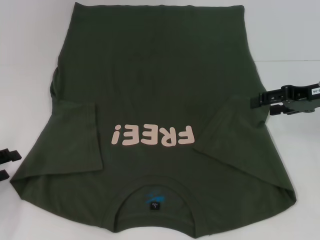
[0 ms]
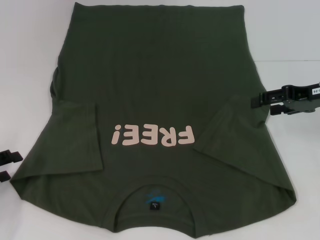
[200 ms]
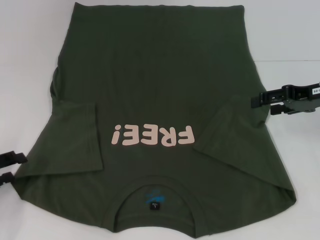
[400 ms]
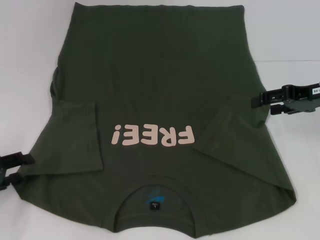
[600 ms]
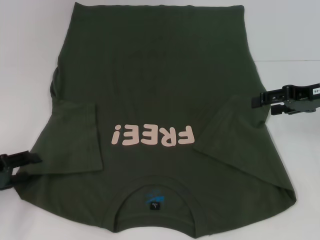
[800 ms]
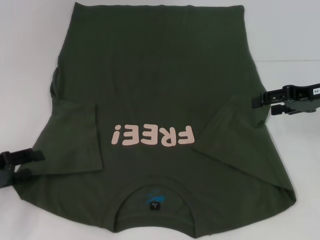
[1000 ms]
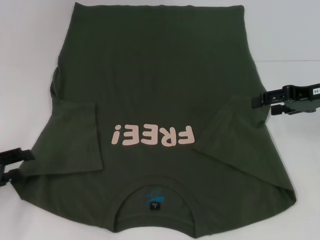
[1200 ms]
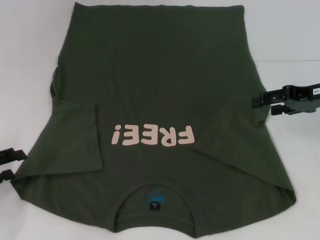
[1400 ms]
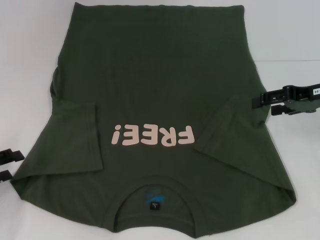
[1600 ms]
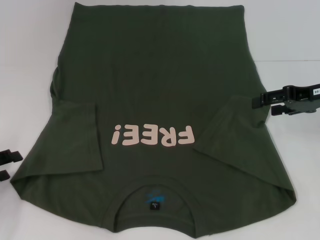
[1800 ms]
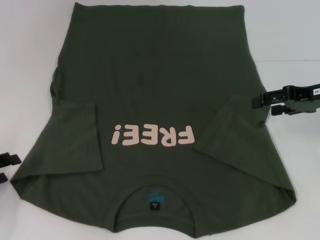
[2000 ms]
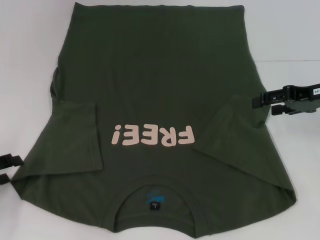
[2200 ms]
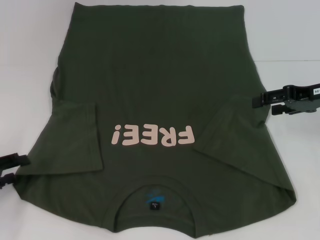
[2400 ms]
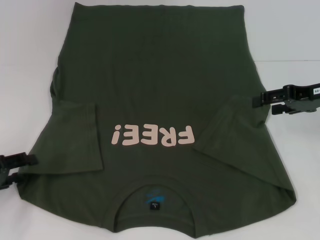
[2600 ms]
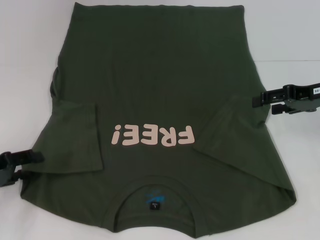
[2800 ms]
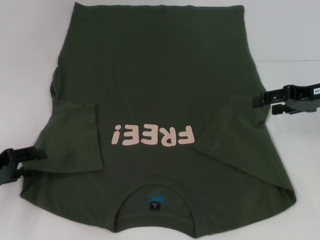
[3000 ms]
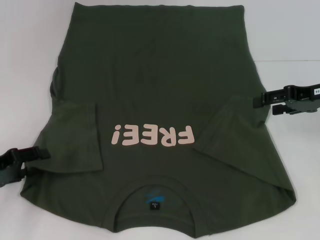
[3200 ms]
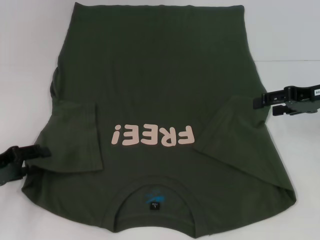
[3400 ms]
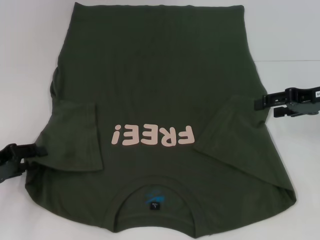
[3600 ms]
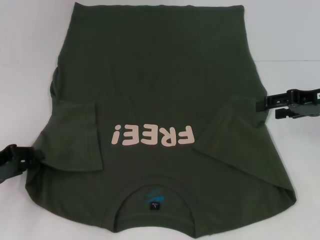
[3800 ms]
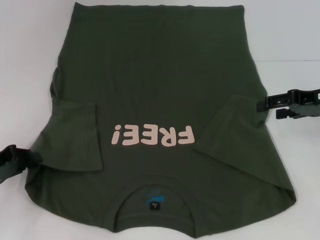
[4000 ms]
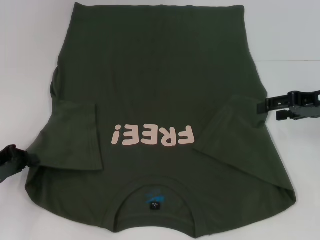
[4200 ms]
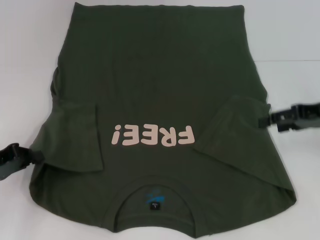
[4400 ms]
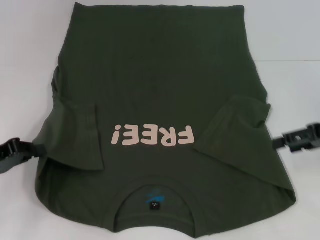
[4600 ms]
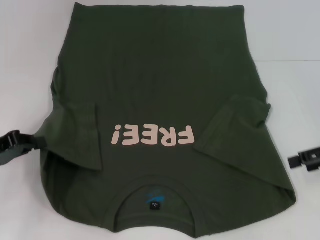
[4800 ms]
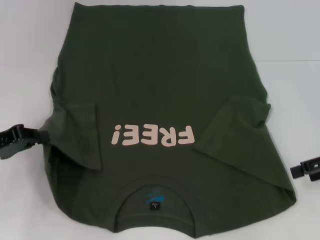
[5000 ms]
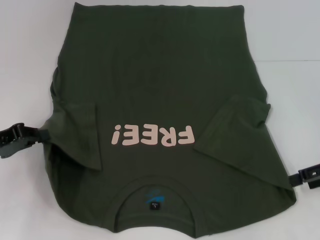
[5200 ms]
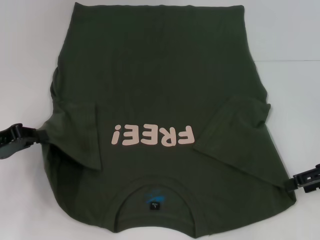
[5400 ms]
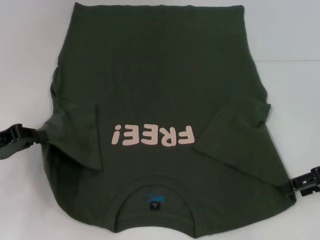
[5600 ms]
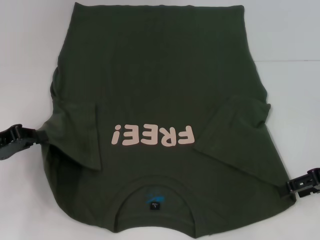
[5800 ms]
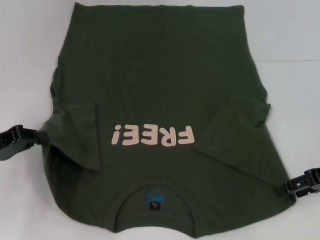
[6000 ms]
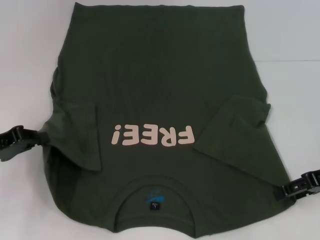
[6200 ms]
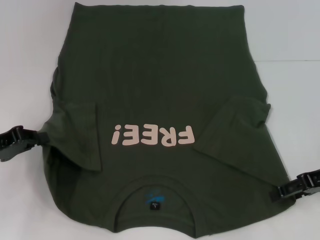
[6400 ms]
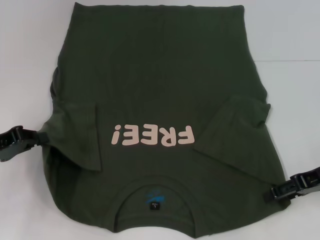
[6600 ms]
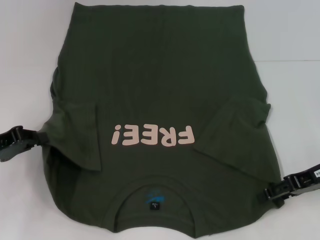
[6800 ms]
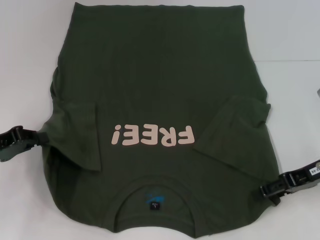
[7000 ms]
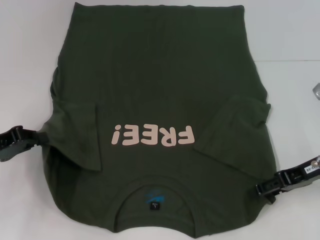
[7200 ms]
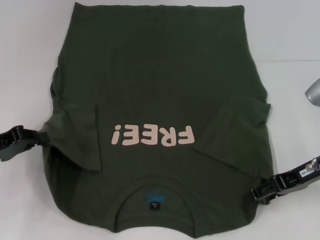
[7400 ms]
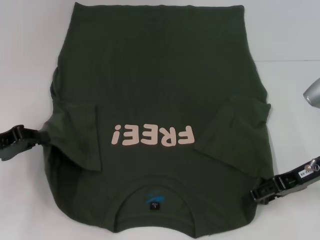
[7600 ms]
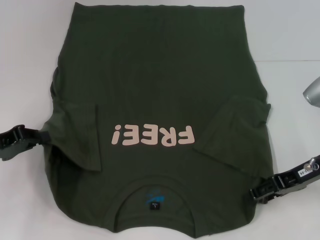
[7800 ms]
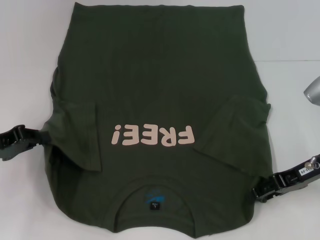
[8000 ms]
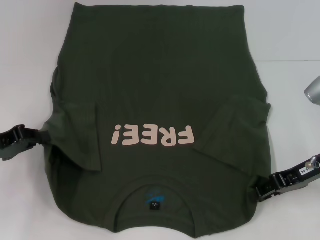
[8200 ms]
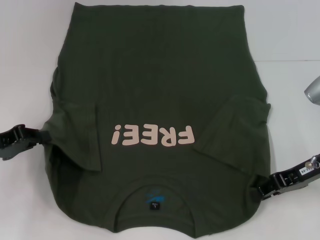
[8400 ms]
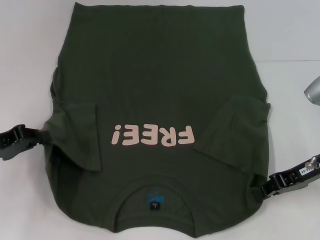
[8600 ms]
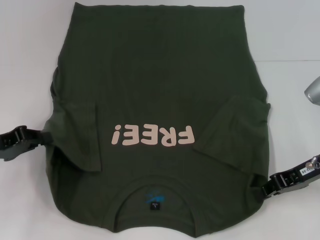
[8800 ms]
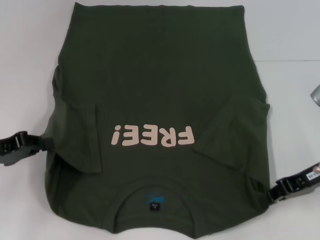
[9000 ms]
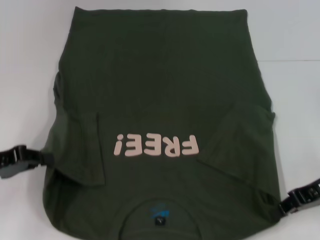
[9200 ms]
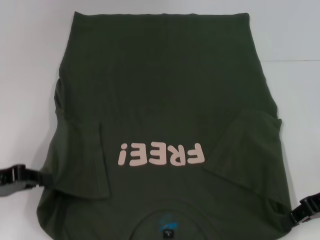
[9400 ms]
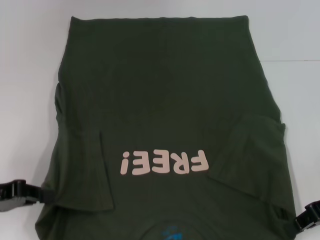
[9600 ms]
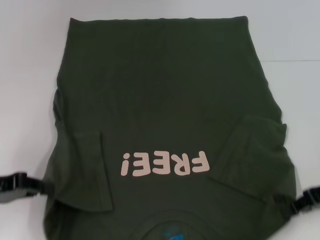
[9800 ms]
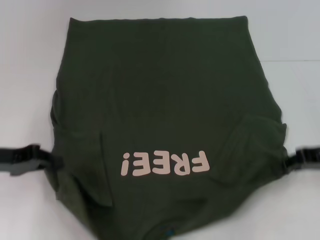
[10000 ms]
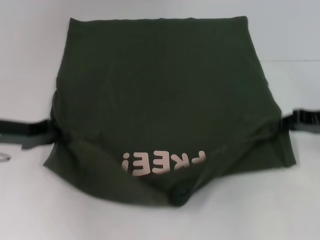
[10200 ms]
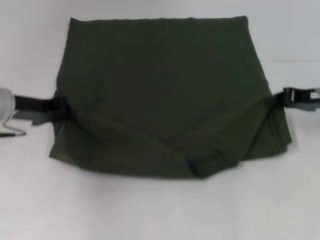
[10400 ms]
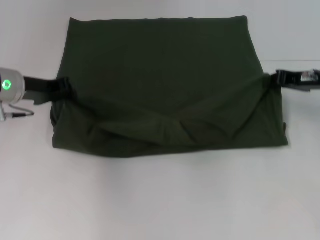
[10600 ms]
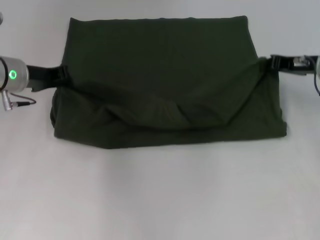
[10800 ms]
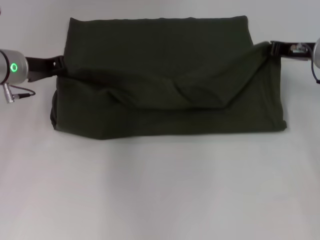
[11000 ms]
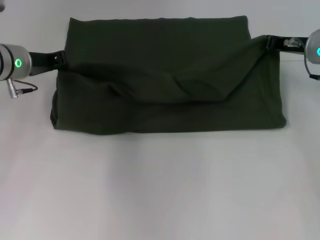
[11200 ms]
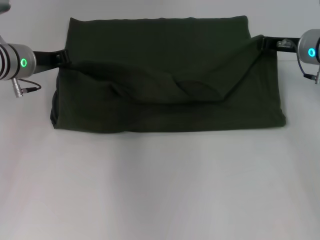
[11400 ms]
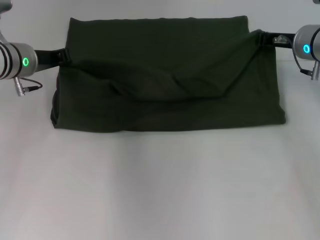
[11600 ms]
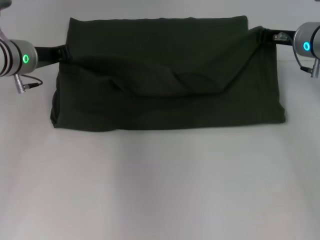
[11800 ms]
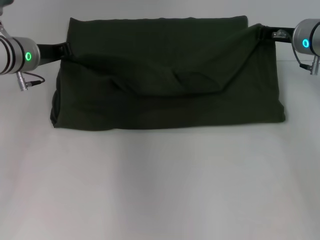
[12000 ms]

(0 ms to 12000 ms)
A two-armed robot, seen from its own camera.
Step, 0 ms - 4800 ms: Grab the bottom left corner with your left hand.
Step, 5000 ms - 7600 ms: Grab the bottom right corner with your right hand.
1600 ms - 3000 ms: The grippers stay close to where they were, moving slightly.
3000 ms - 4400 ms: The left gripper closes.
4400 ms - 6000 ms: The right gripper changes place by about 5 cm.
6000 ms - 7600 ms: The right gripper heads to the left, covering some 5 cm.
7600 ms - 9000 ms: The right gripper closes.
9000 ms - 10400 ms: The right gripper is displaced forward by some 5 cm. Meanwhile the left gripper heads forward and to the right, covering some 10 cm.
10400 ms - 12000 ms: The right gripper travels forward and to the left by roughly 10 cm, while the left gripper goes approximately 5 cm forward.

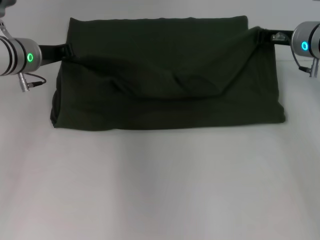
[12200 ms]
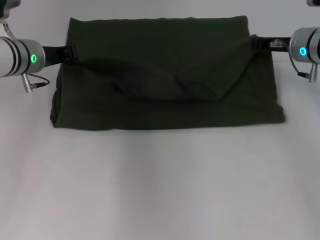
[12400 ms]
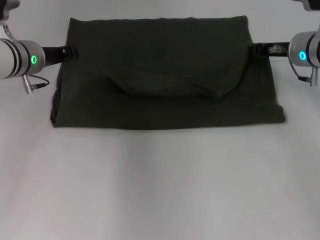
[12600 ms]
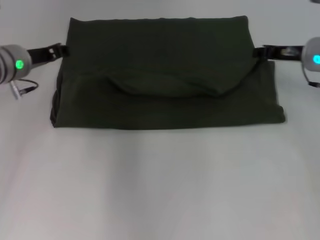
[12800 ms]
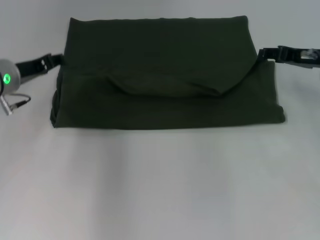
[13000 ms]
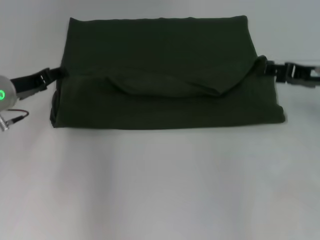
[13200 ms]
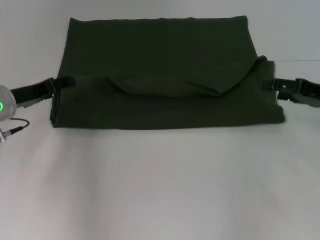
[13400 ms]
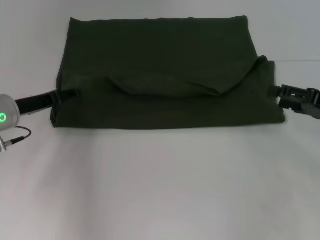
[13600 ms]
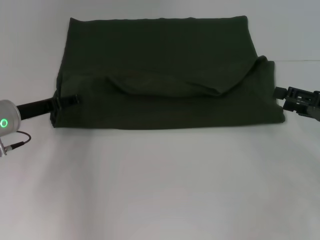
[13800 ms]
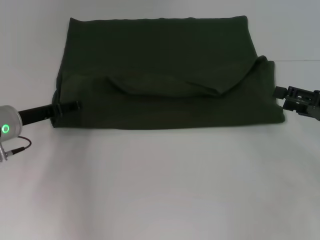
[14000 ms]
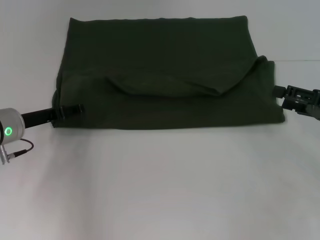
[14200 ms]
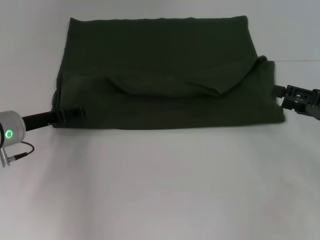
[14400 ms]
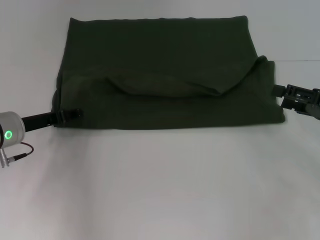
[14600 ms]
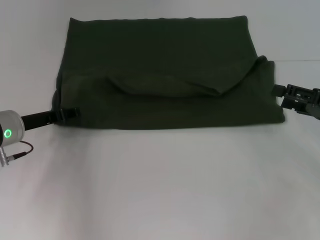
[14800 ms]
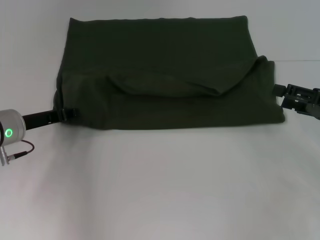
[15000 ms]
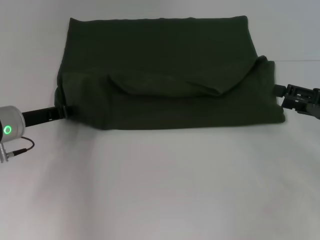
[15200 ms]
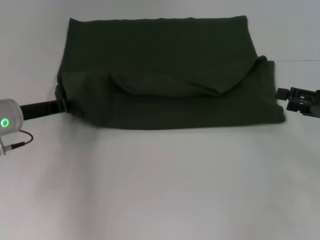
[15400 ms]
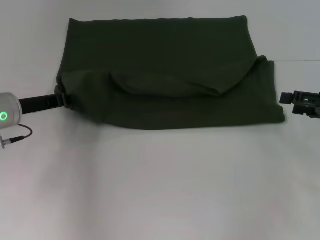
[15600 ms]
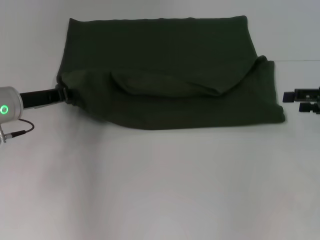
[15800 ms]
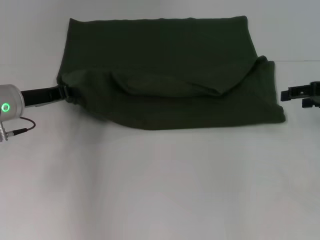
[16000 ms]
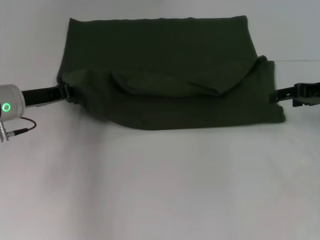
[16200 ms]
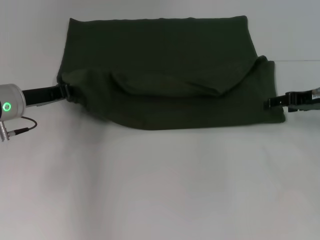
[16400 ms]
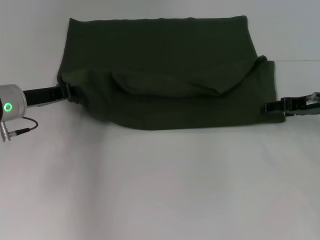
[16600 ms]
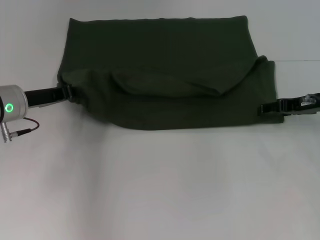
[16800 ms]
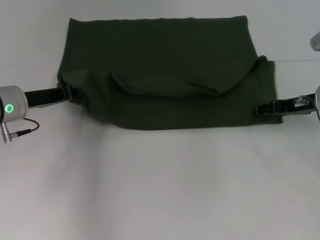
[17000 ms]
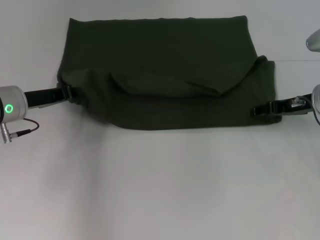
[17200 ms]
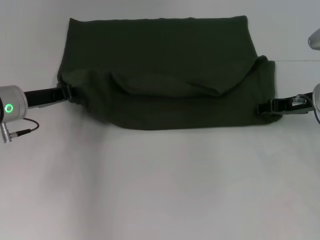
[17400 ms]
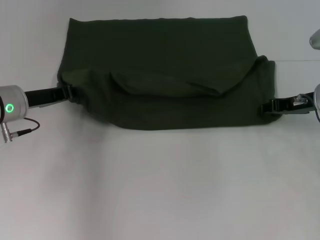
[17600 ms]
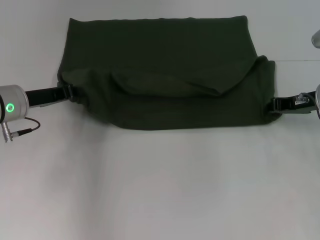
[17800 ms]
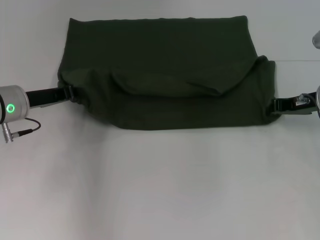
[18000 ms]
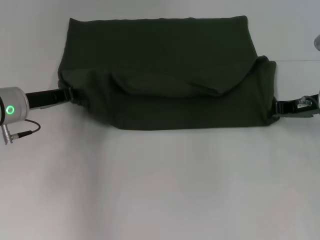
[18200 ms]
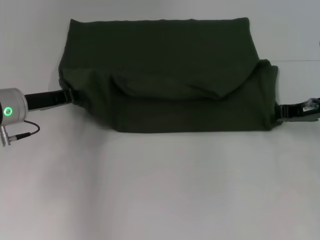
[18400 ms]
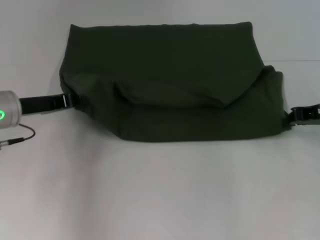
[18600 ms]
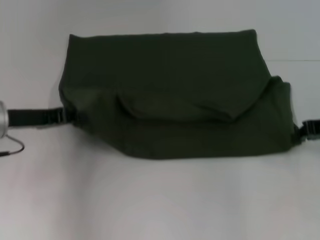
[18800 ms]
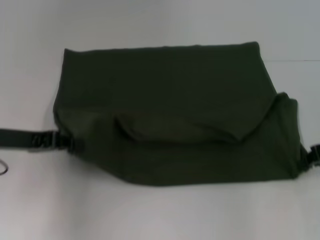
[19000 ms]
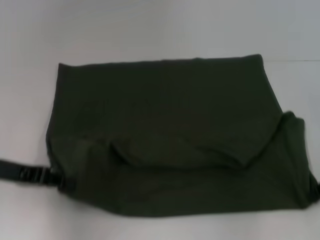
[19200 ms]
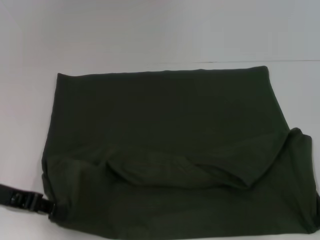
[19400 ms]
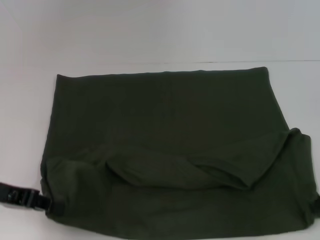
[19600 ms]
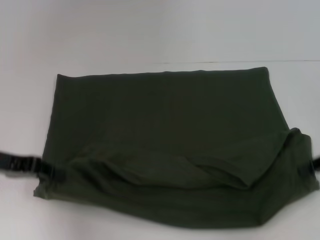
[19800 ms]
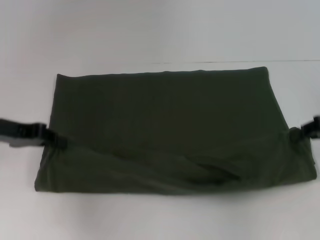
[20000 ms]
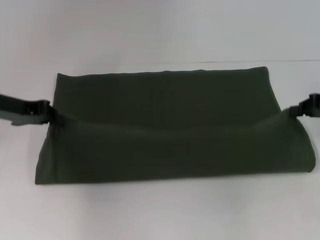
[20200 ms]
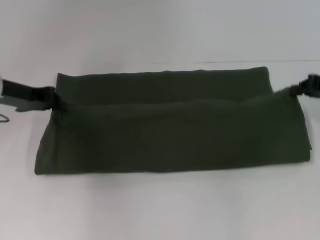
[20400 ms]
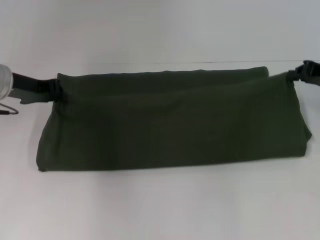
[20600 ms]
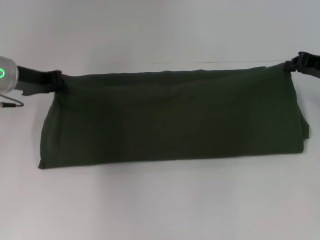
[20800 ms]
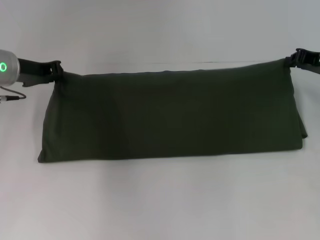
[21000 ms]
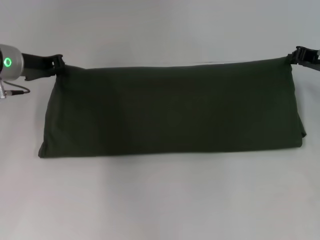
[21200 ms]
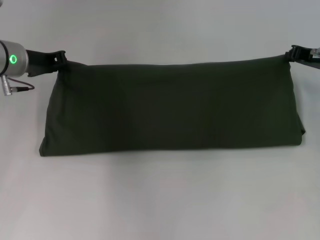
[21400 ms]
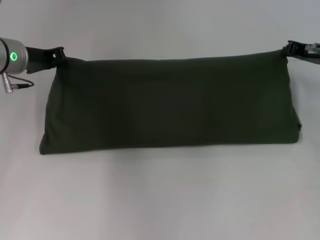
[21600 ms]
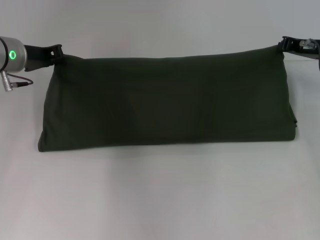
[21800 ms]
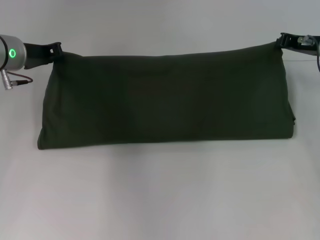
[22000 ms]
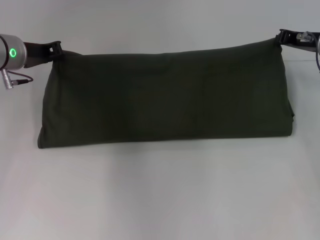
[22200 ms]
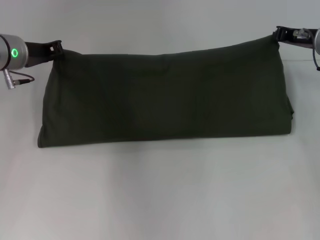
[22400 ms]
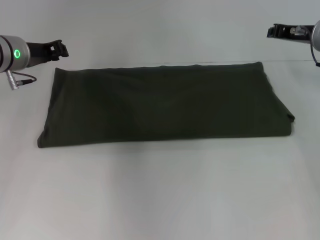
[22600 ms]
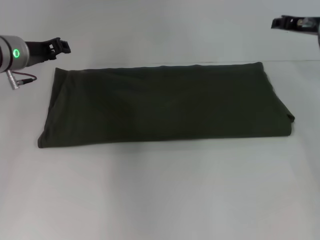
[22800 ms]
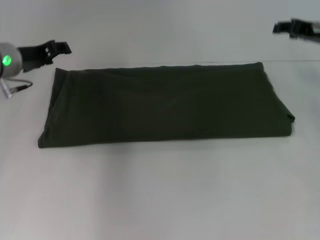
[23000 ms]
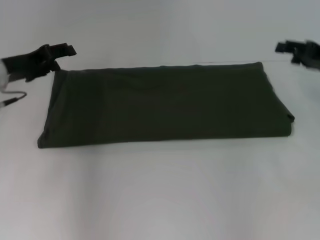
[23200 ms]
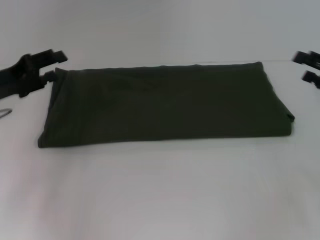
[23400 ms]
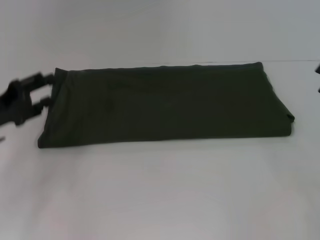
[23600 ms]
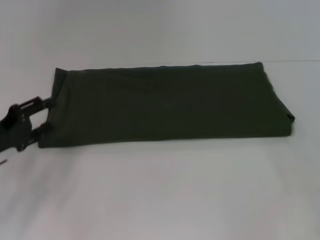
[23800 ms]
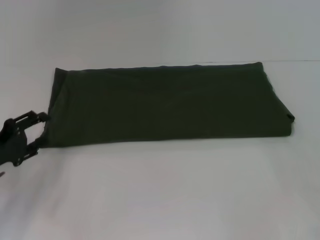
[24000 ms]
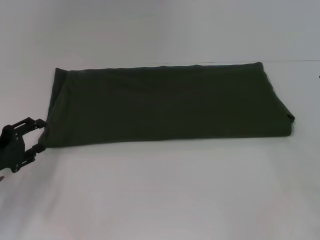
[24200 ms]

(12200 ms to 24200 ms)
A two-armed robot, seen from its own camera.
Step, 13400 ms - 19600 ms: Pull the clothes with your left hand.
Step, 13400 ms - 19600 ms: Pull the clothes with your right hand.
Step, 19800 ms - 23000 ms: Fold the clothes with your right hand.
12200 ms - 13800 ms: The right gripper travels backward and to the right by some 20 cm, and opens its fingers, while the left gripper goes some 10 cm backward and downward, and opens.
13800 ms - 15200 ms: The left gripper closes up.
15200 ms - 16600 ms: The right gripper is displaced forward by some 10 cm.
16600 ms - 18200 ms: The right gripper closes up.
18200 ms - 19800 ms: The left gripper travels backward by some 10 cm, while the right gripper goes about 10 cm backward and to the right.
19800 ms - 21200 ms: Both grippers move forward, roughly 10 cm.
21200 ms - 22600 ms: The right gripper shifts by some 5 cm.
22600 ms - 24200 ms: The right gripper travels backward and to the right by approximately 20 cm, and opens up. The left gripper moves backward, downward and to the left, roughly 20 cm, and opens up.
